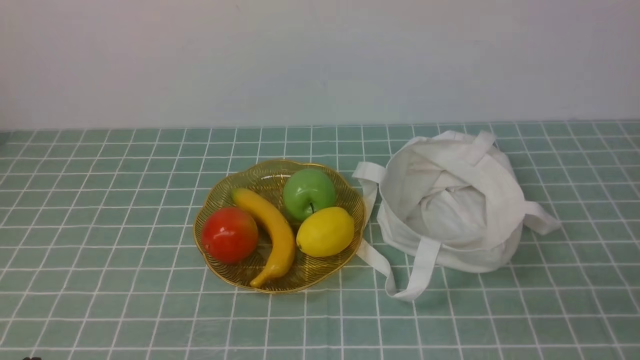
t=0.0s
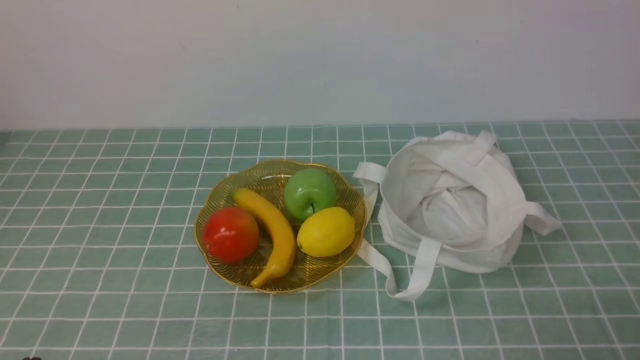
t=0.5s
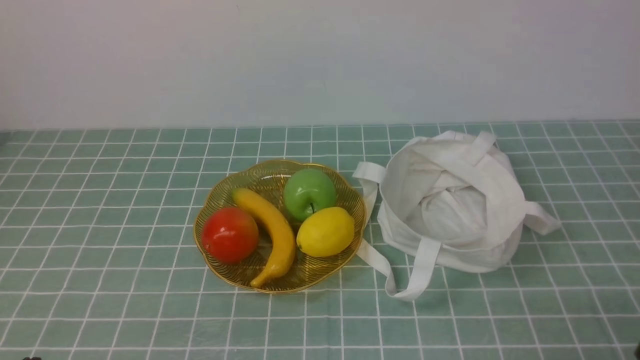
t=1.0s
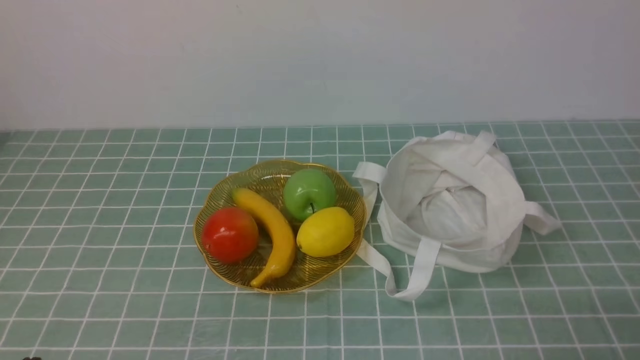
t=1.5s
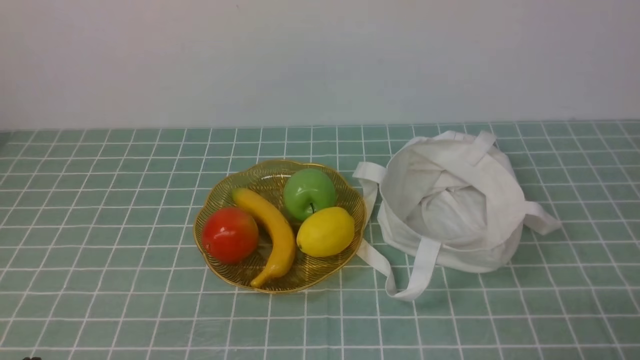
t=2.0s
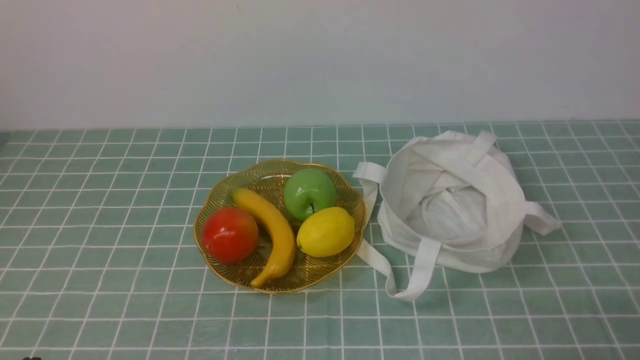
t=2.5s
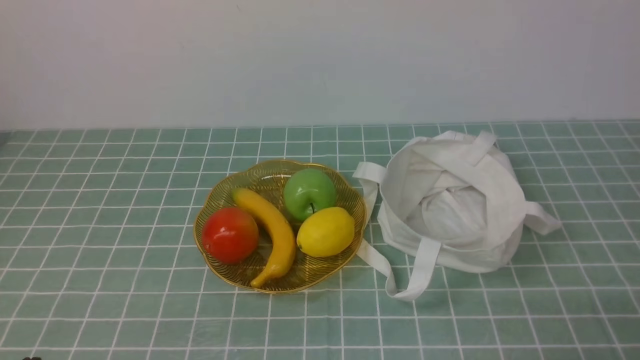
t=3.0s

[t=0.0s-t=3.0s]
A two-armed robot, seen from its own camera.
t=1.5s to t=3.0s: Both grippers stay about where they are.

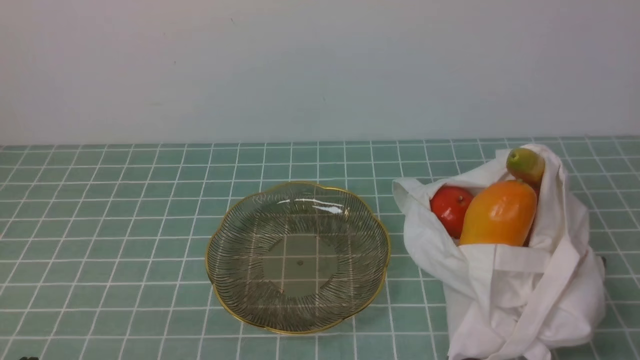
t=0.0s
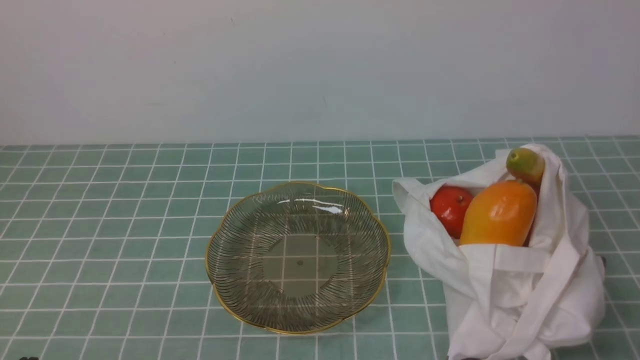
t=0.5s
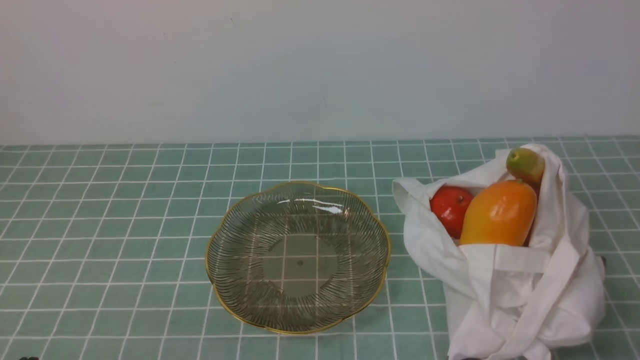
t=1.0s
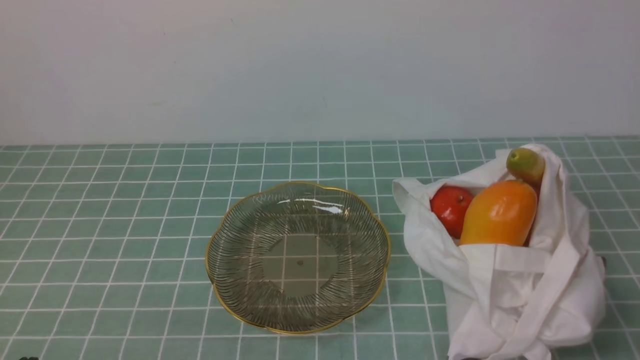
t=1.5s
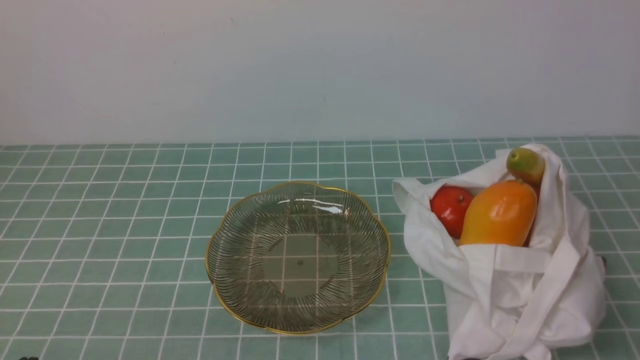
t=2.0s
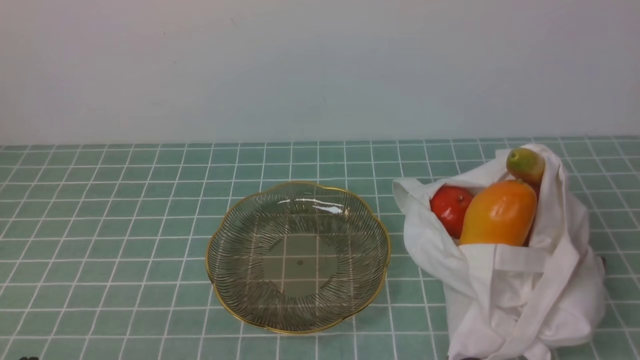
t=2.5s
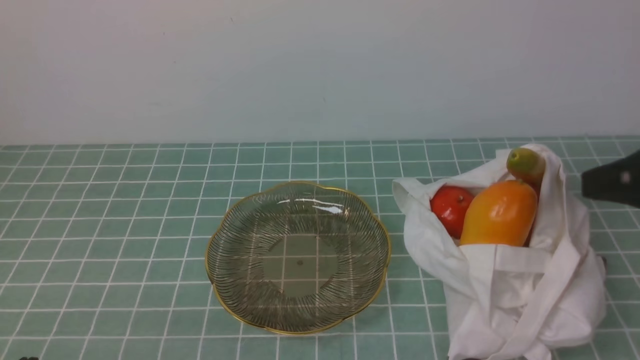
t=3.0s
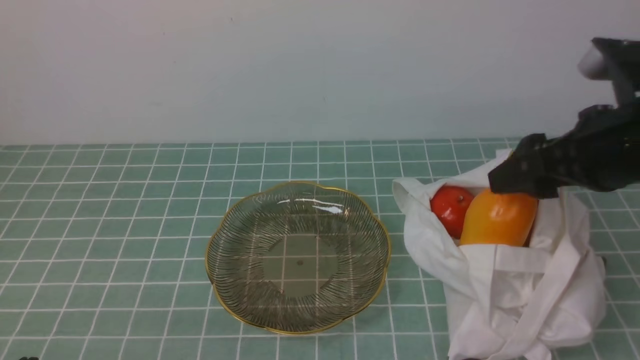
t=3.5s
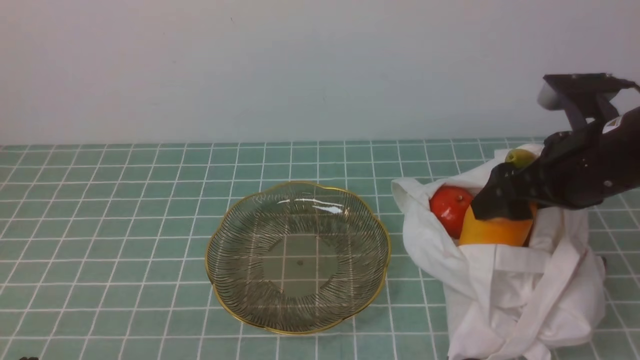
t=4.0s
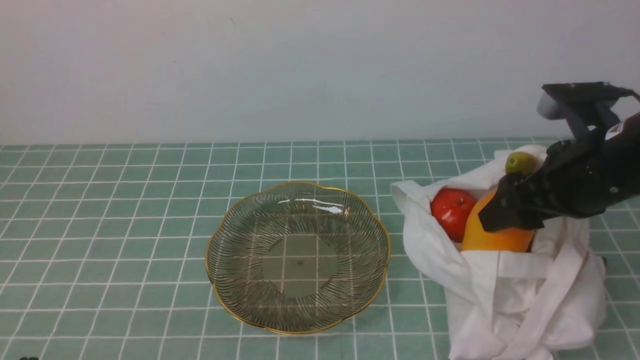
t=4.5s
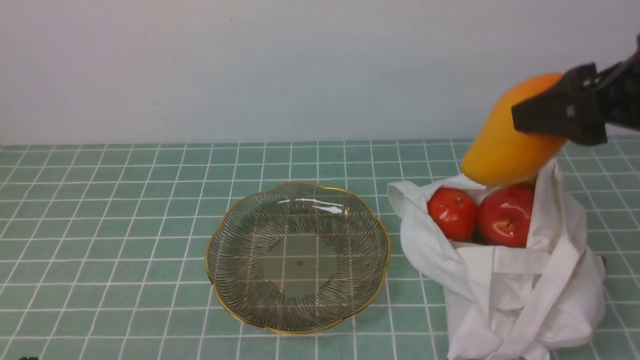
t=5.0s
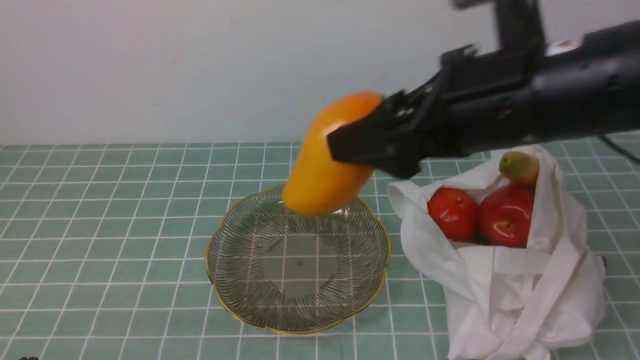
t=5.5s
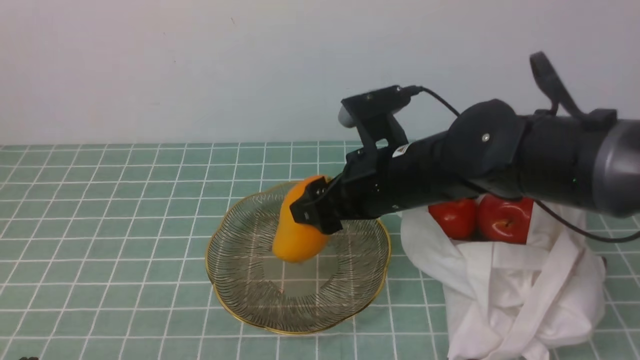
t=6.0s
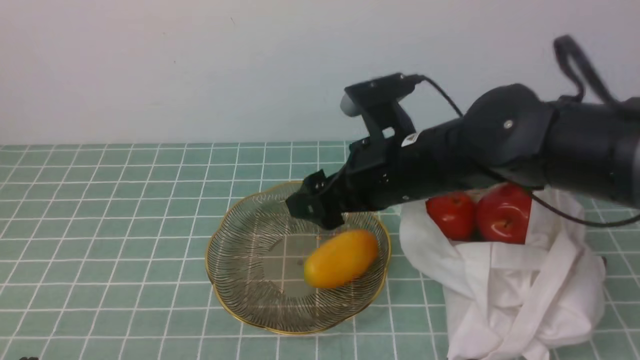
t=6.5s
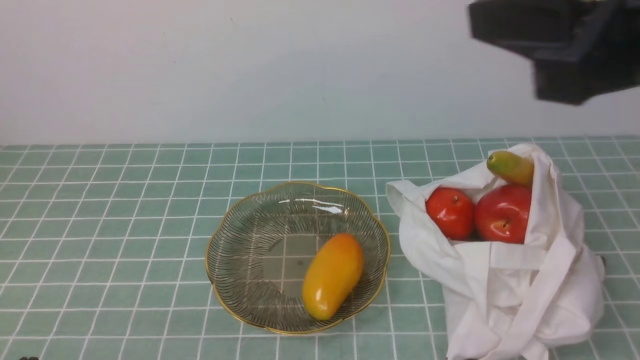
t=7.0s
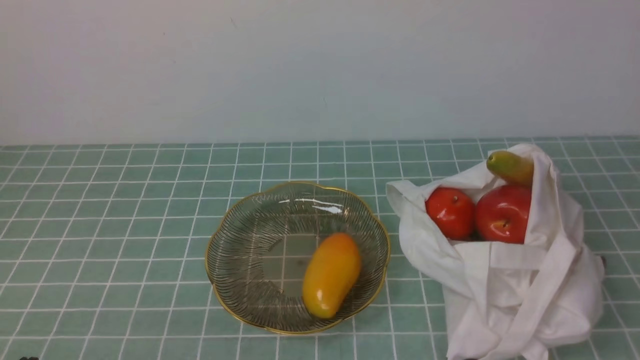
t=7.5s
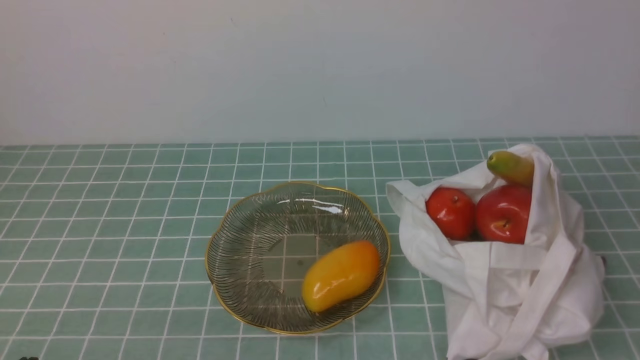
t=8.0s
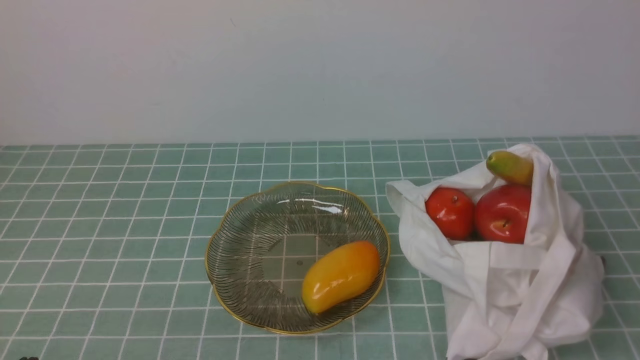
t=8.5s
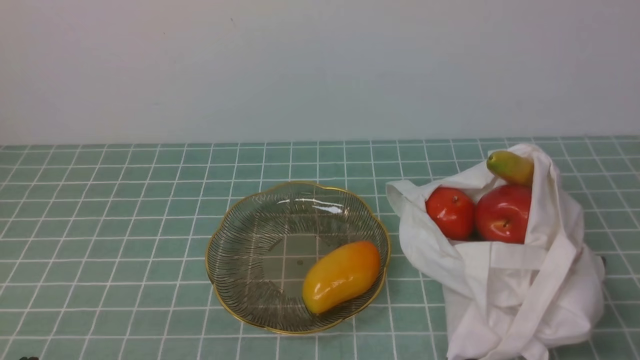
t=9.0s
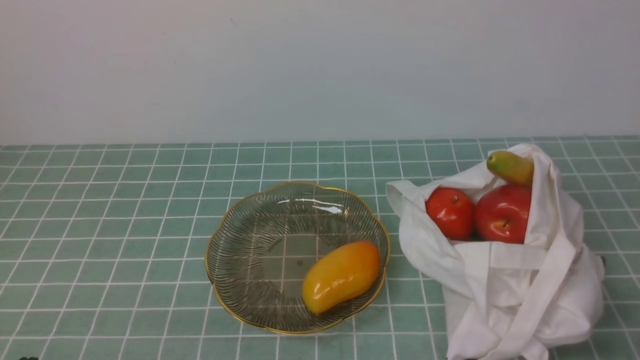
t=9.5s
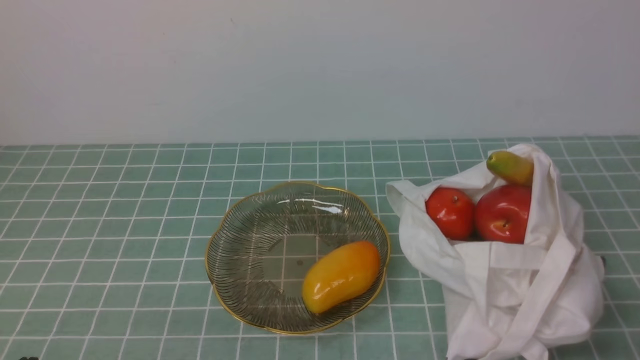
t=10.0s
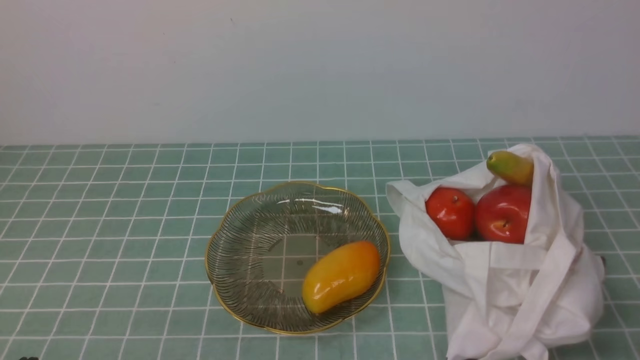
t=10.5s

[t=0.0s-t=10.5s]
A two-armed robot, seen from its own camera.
Step, t=0.0s to t=4.5s: use the right arm to grab a mango from the bag.
Step, t=5.0s to t=6.5s: use the right arm to put the mango into the empty plate on the left.
t=2.0s to t=4.0s: The right gripper shifts about 25 cm forward, and opens up.
t=4.0s to t=6.5s: The right gripper travels to the left by roughly 15 cm.
t=6.5s to t=8.5s: The right gripper travels backward and to the right by about 30 cm, and closes.

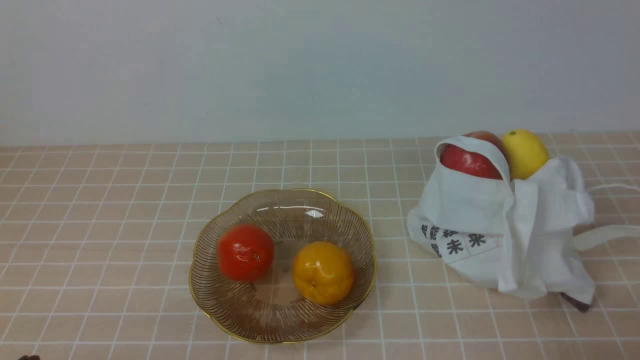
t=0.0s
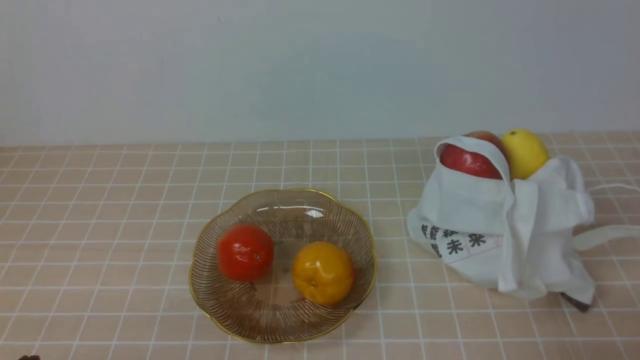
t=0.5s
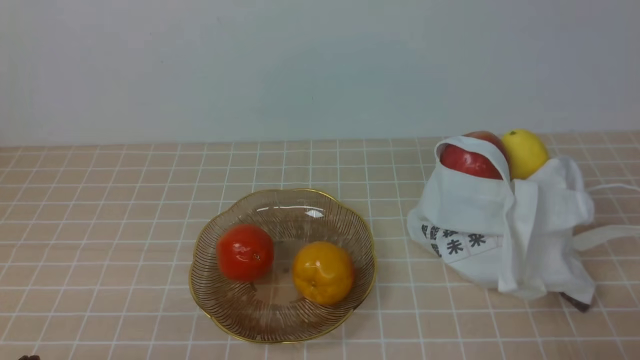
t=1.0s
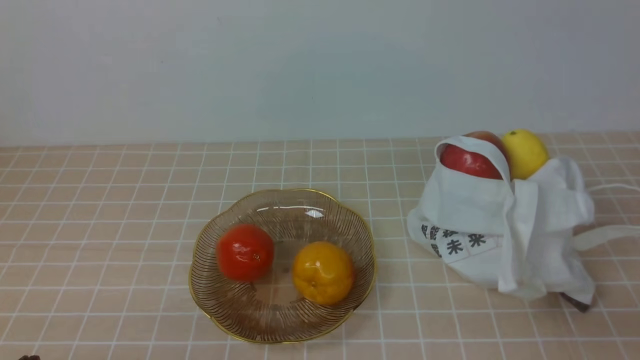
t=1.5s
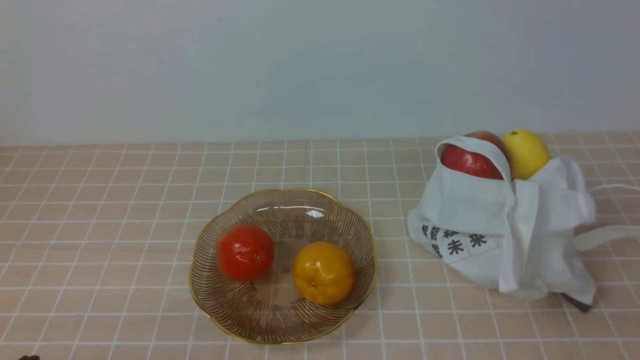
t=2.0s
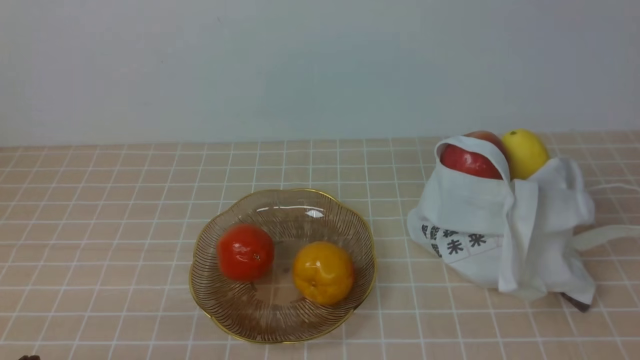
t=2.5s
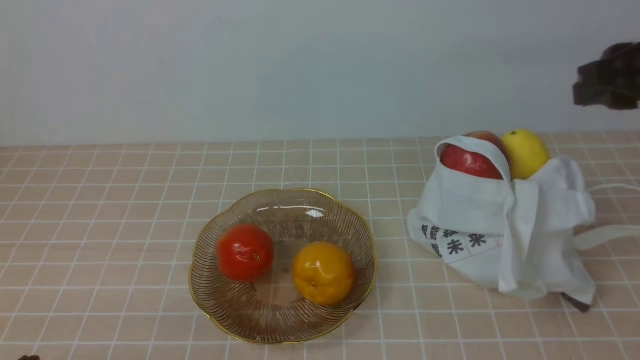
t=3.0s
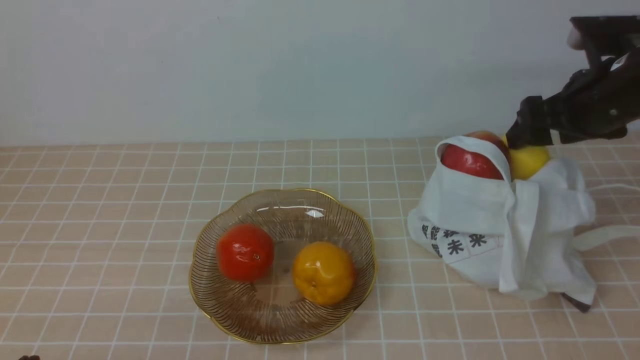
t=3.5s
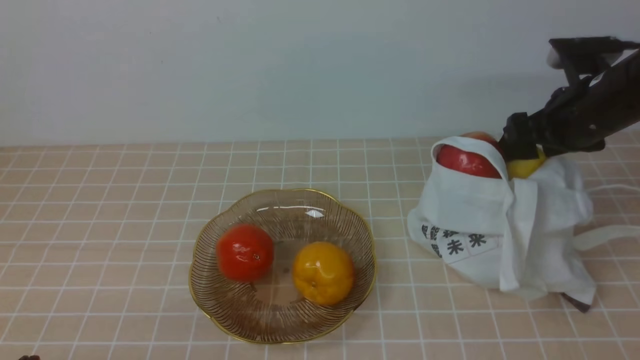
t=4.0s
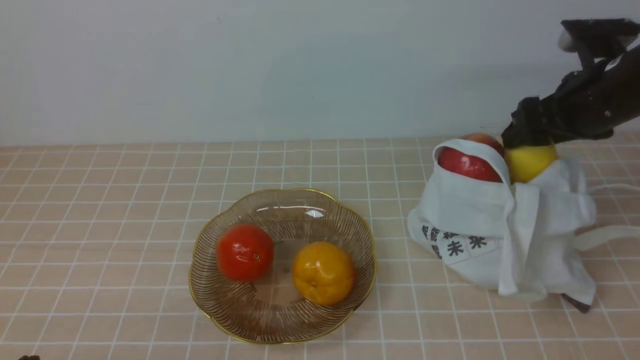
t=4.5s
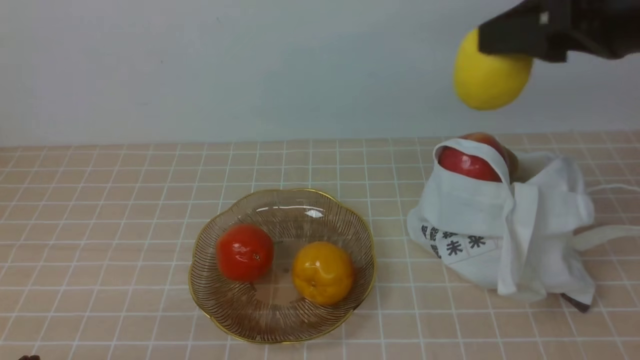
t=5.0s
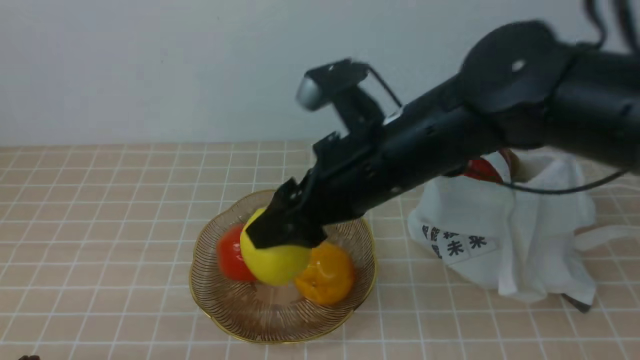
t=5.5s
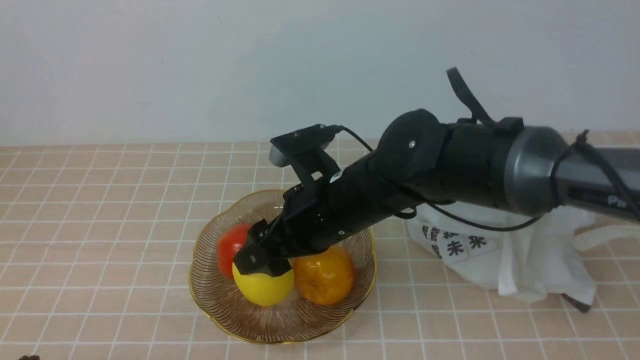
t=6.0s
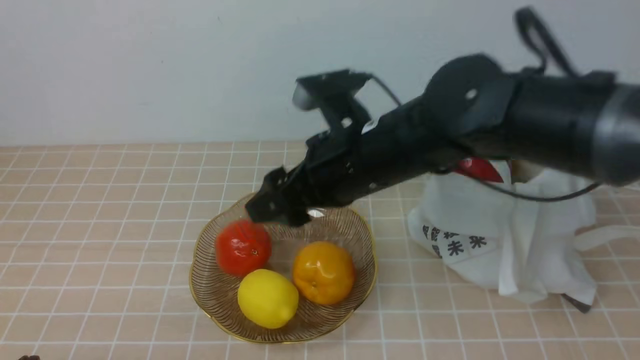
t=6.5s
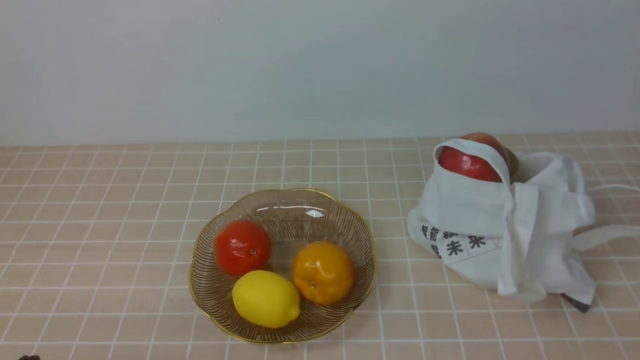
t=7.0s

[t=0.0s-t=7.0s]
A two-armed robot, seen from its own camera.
Step, t=0.0s to t=4.5s: use the right arm to grab a lemon from the bag.
Step, t=5.0s to t=6.0s: use the right arm to put the lemon into the empty plate on the left.
t=2.0s to t=3.5s: The right gripper goes some 30 cm forward, and opens.
t=3.5s to t=5.0s: The right gripper shifts about 15 cm upward, backward and to the left.
t=5.0s to t=7.0s: The right gripper shifts some 15 cm backward and upward, reaches about 20 cm to the left, then returns, and closes its fingers.
